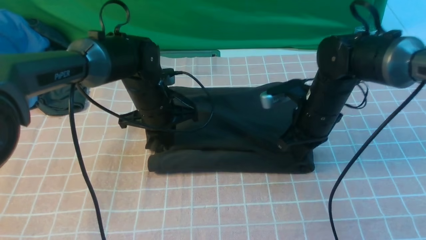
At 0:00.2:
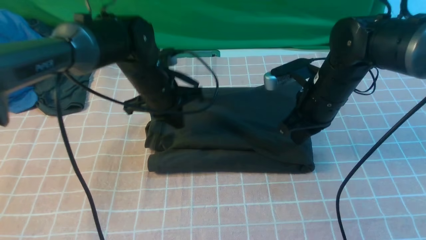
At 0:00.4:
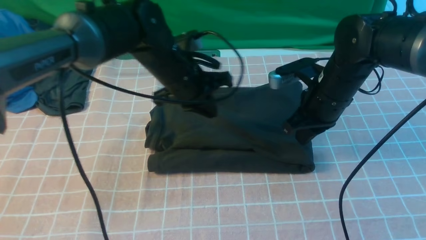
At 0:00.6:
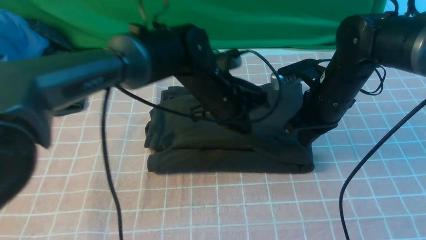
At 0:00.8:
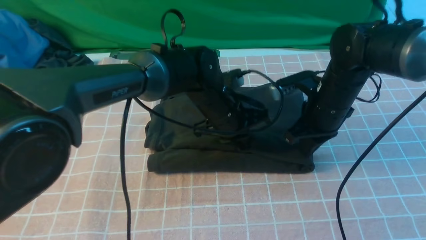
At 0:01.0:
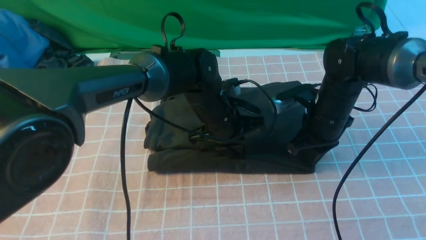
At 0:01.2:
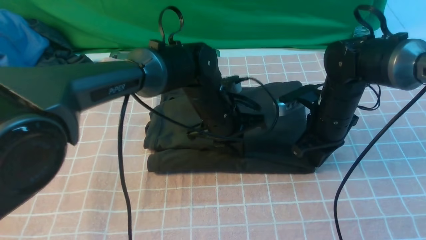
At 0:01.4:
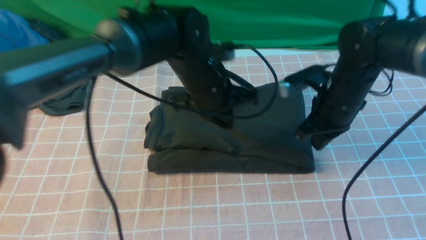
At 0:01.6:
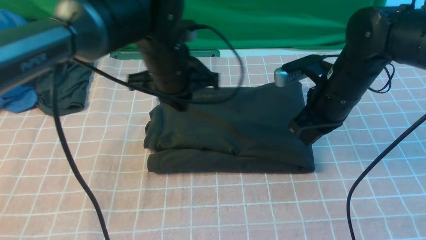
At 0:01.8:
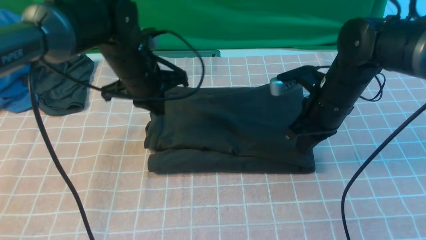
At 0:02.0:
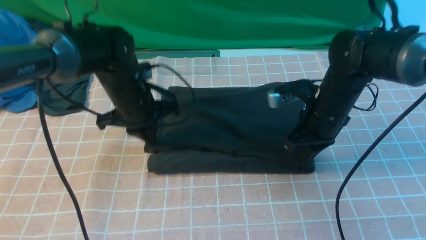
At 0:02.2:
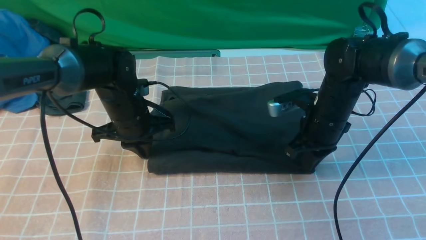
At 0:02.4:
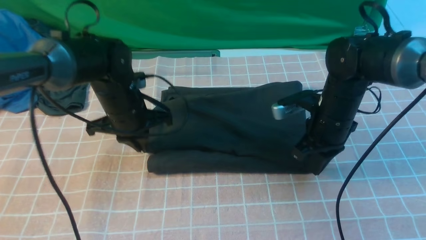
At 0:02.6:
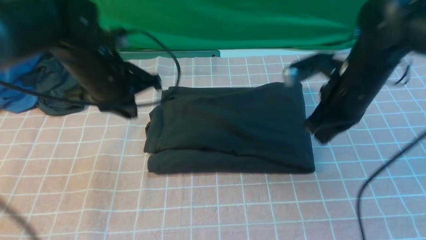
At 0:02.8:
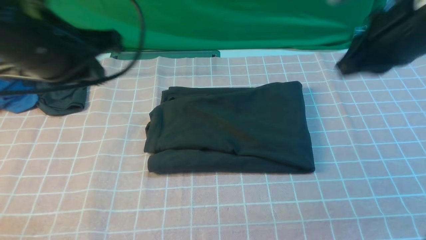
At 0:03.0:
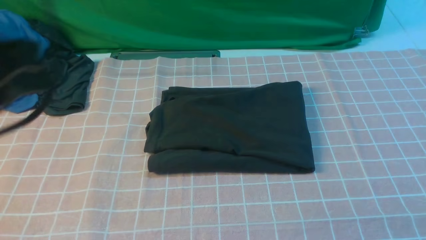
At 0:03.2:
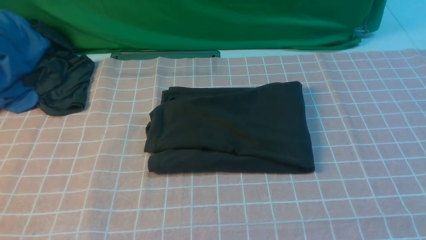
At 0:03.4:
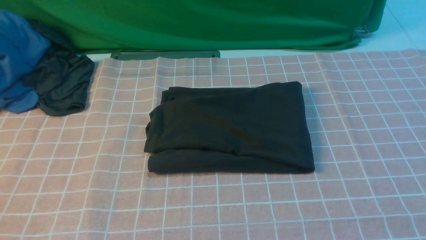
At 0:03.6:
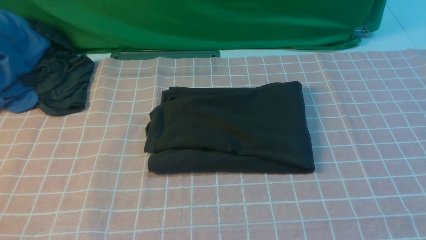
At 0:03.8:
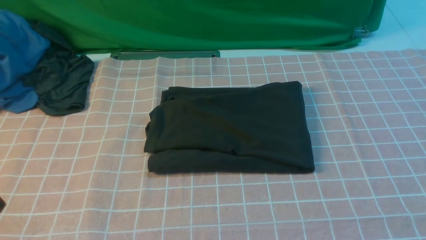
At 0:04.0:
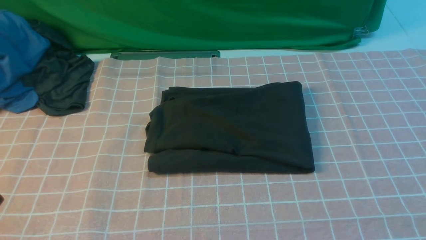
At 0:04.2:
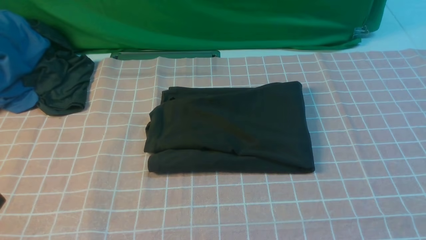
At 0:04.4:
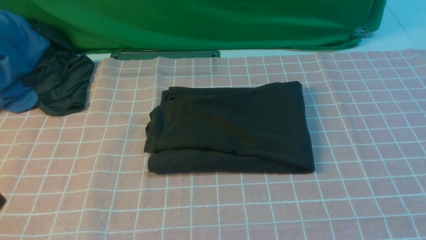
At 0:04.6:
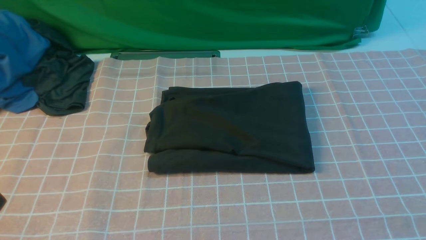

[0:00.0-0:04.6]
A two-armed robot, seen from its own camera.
0:00.0 to 0:01.6: The left gripper is displaced upward by some 5 cm, and goes to the right and returns, approximately 10 cm each way.
0:01.6 to 0:03.0: The right gripper goes about 30 cm upward and backward. The left gripper is displaced backward, upward and to the left by about 30 cm.
0:03.0 to 0:04.6: The left gripper travels backward and downward by approximately 15 cm.

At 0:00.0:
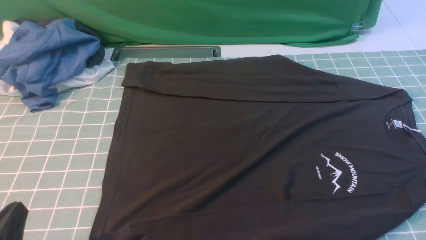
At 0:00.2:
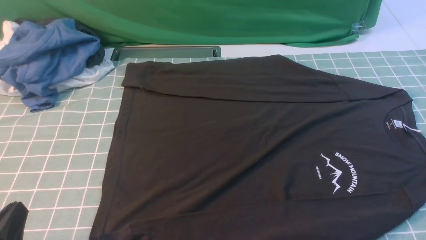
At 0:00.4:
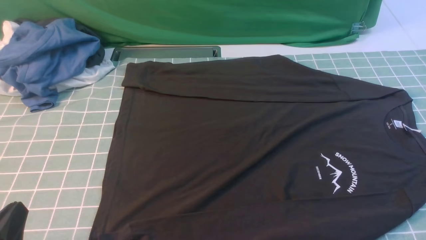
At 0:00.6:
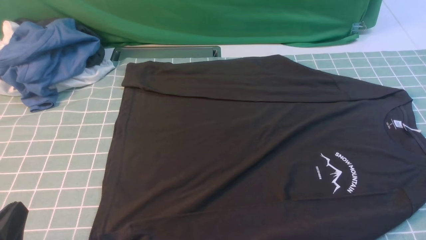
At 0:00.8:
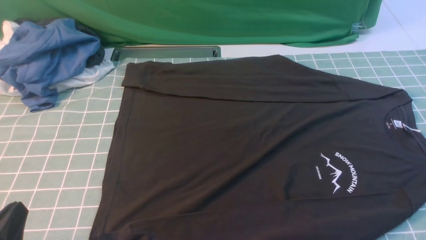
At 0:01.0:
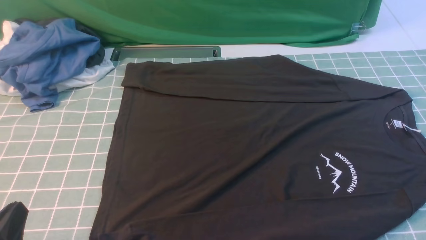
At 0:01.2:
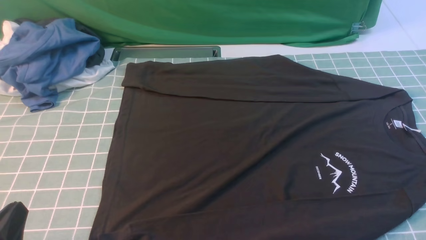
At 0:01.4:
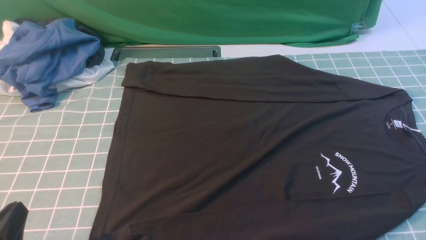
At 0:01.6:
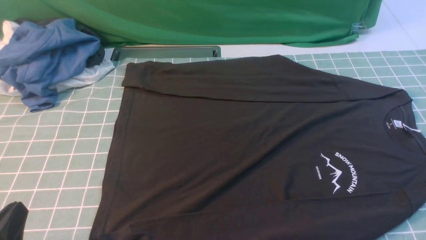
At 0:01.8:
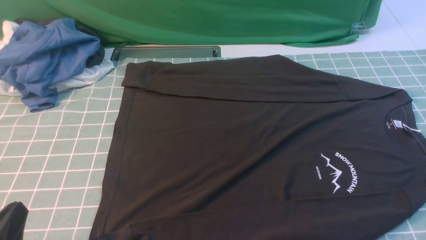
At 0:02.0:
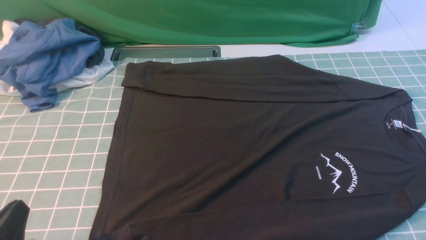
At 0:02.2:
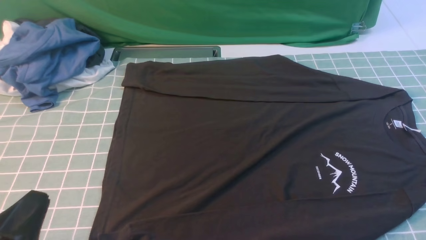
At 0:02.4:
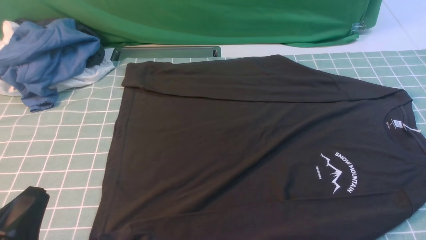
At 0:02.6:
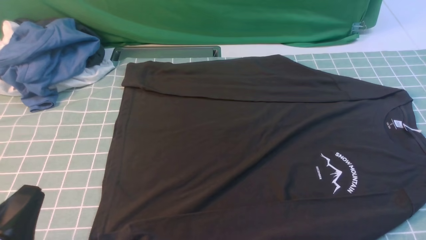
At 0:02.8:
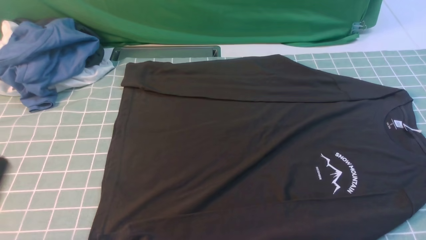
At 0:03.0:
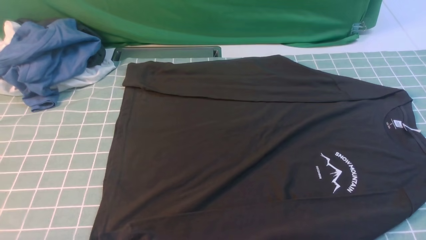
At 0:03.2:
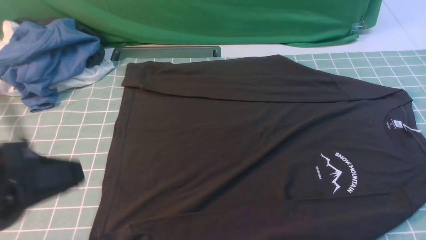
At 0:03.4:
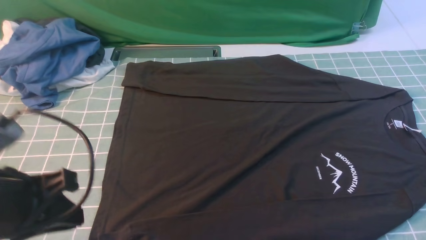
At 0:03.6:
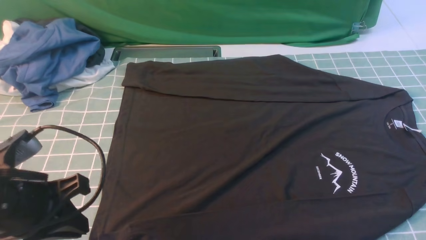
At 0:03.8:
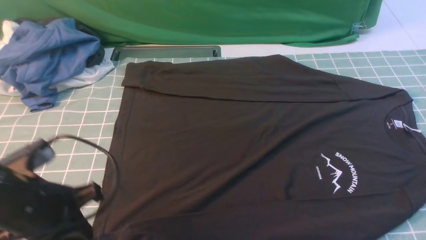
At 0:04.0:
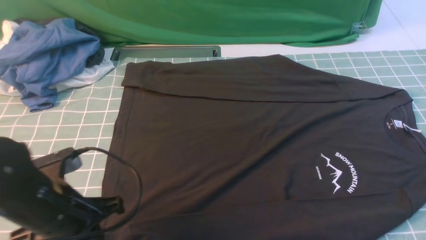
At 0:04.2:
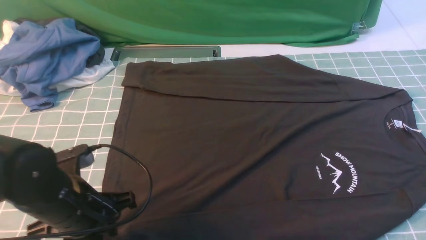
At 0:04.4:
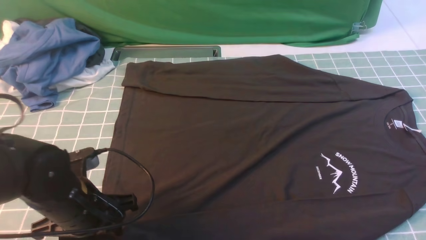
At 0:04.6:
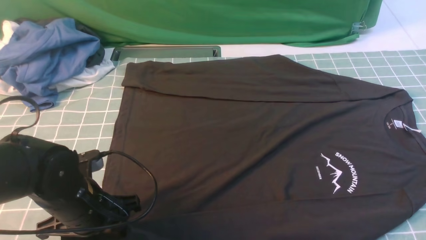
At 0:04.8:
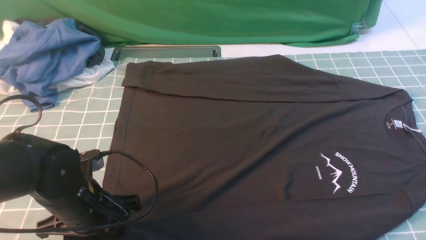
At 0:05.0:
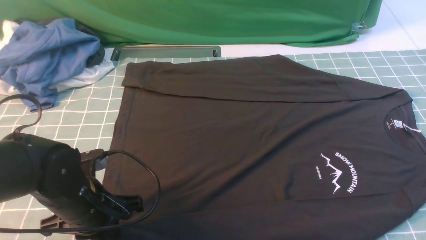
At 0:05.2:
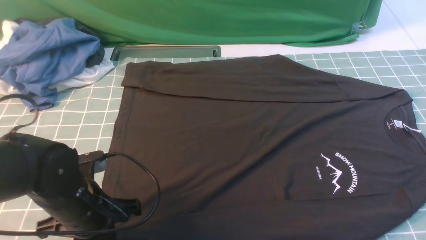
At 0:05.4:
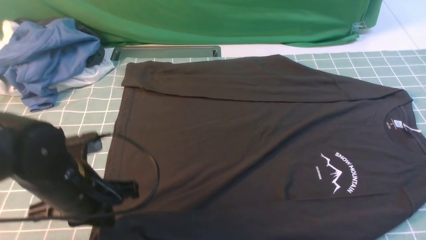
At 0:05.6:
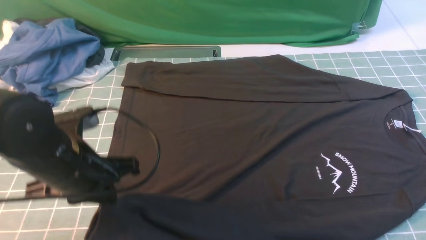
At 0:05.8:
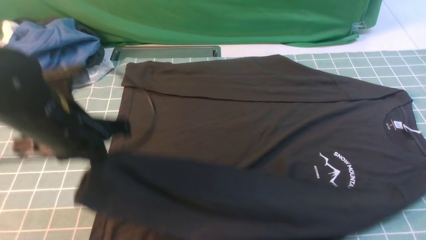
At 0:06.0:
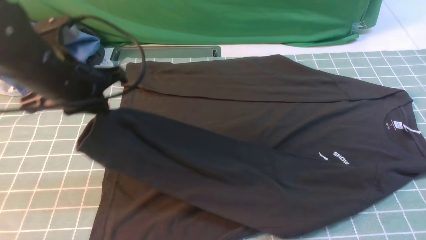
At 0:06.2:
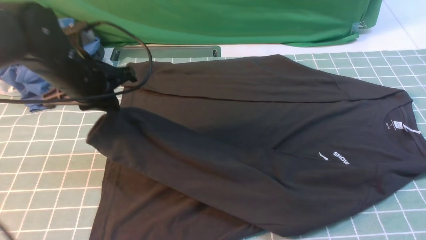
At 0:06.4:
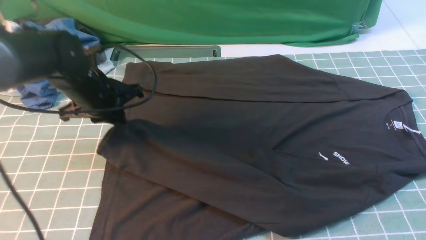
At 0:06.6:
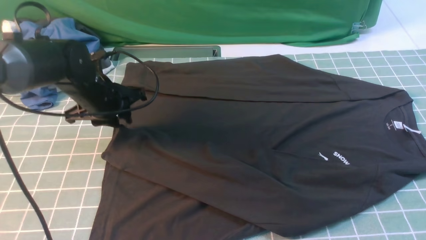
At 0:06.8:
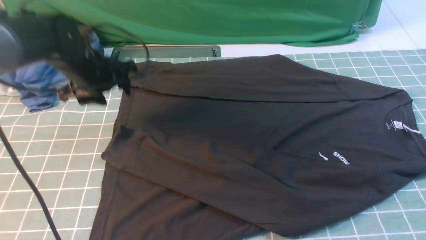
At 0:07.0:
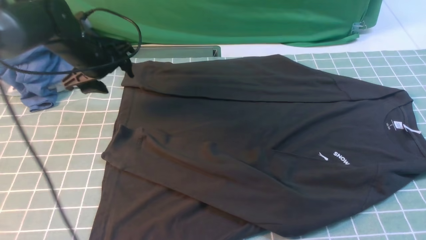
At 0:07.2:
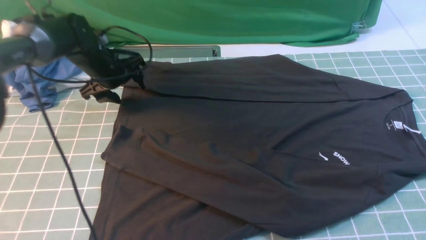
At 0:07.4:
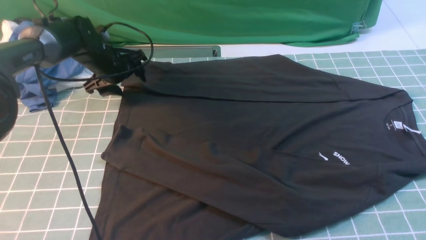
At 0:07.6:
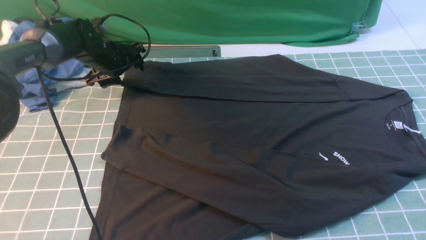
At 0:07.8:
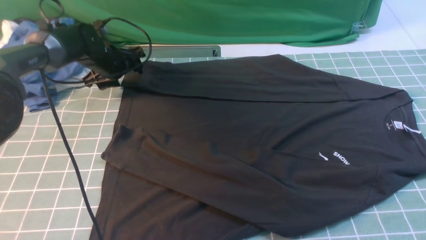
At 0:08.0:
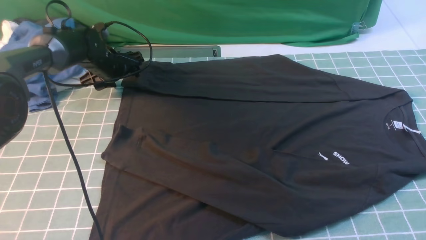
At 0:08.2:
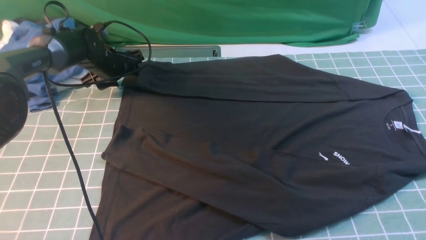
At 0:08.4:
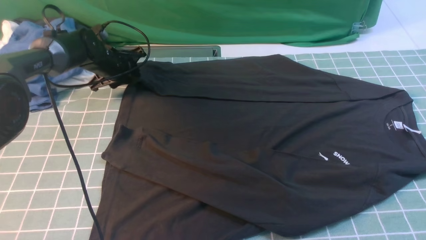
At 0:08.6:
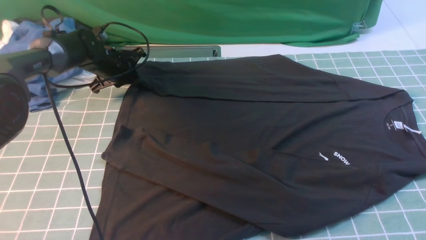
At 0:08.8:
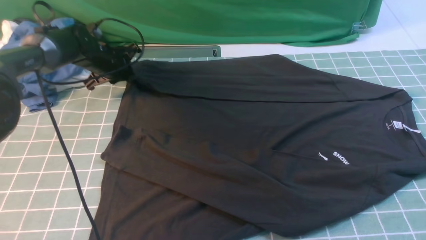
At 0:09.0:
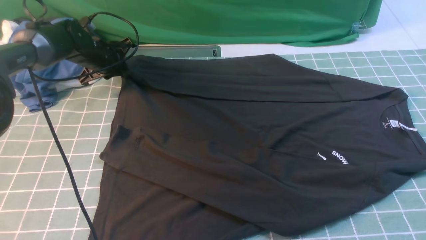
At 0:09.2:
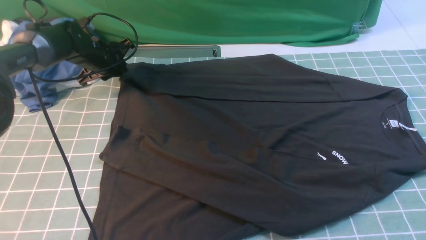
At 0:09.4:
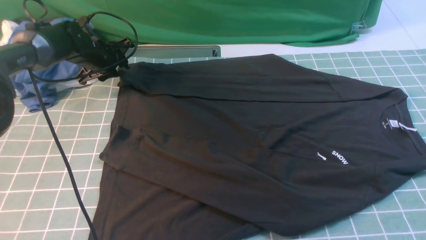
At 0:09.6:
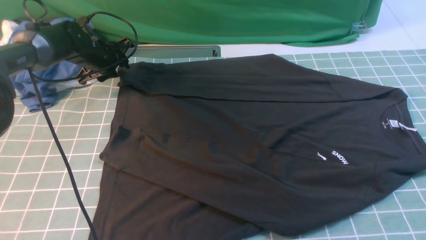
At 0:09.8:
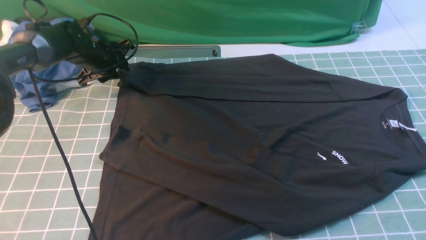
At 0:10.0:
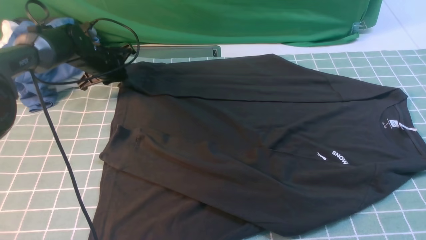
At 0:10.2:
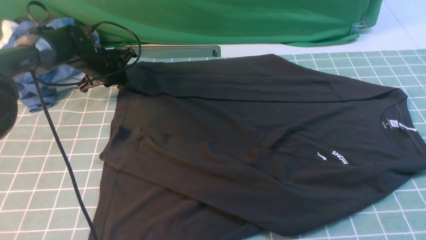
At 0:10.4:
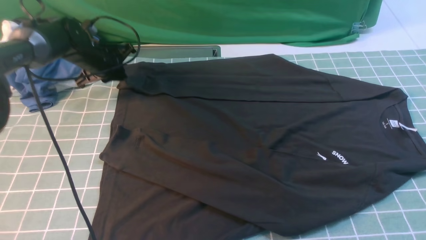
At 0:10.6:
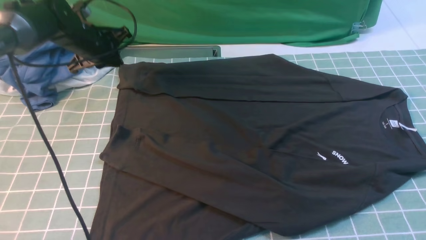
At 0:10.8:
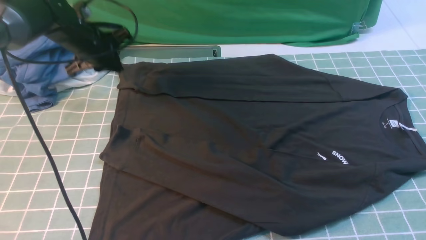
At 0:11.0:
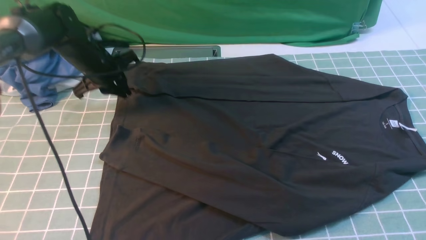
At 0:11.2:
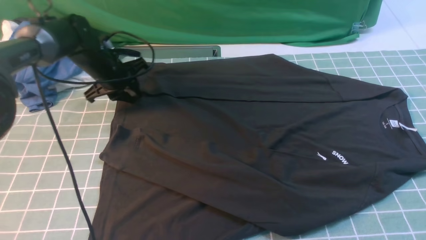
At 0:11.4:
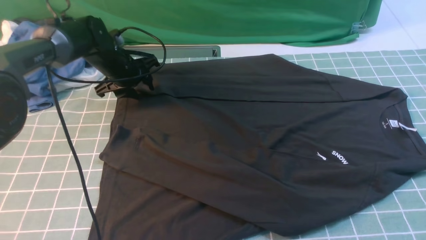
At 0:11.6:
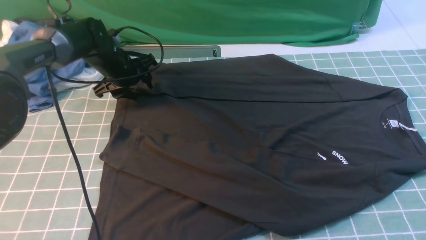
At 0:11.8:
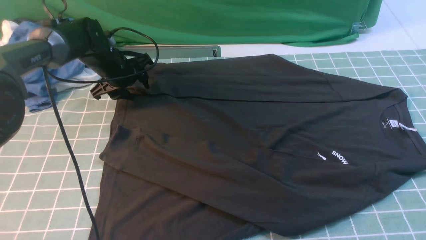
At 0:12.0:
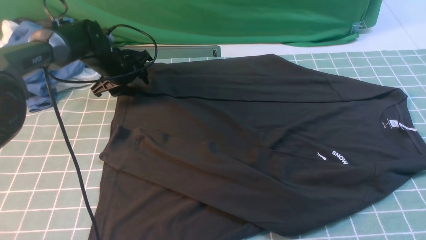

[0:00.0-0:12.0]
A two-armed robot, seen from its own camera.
Step, 0:00.0 to 0:05.2: use the left arm to clamp the cuff closest to it.
Step, 0:05.4 to 0:06.6: use the left arm to drag and place the cuff at the centered position on the left edge of the fabric.
0:00.0 to 0:01.6: Both grippers stay put.
0:01.6 to 0:03.0: The left gripper goes some 15 cm upward.
0:03.0 to 0:04.4: The right gripper travels forward by roughly 5 cm; the left gripper heads downward and forward, covering roughly 25 cm, and opens its fingers.
0:04.4 to 0:06.0: The left gripper shifts some 15 cm upward and forward, and closes its fingers.
0:06.0 to 0:07.6: The left gripper goes approximately 25 cm forward and downward, and opens up.
0:07.6 to 0:09.0: The left gripper closes its fingers.
0:09.0 to 0:10.4: The grippers make only small movements.
0:10.4 to 0:12.0: The left gripper opens its fingers.
